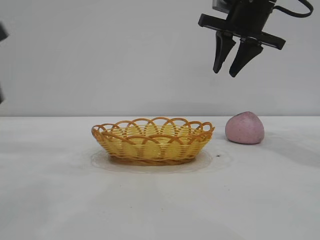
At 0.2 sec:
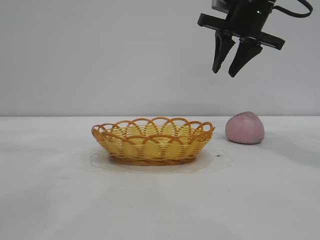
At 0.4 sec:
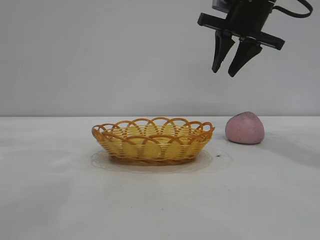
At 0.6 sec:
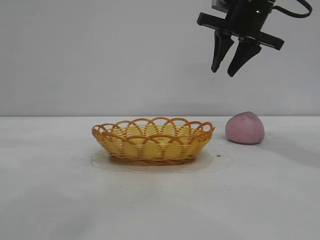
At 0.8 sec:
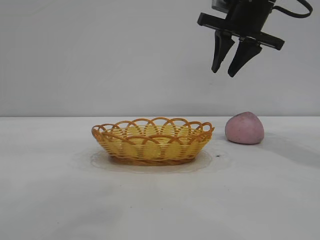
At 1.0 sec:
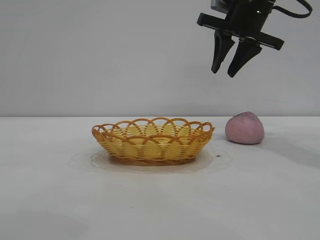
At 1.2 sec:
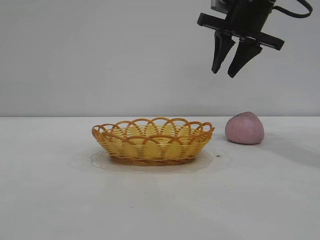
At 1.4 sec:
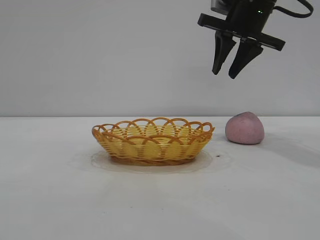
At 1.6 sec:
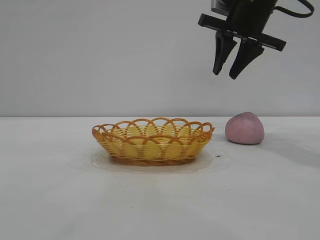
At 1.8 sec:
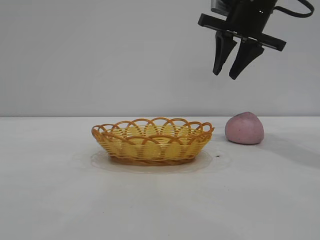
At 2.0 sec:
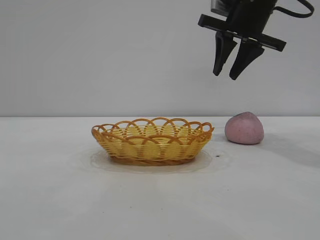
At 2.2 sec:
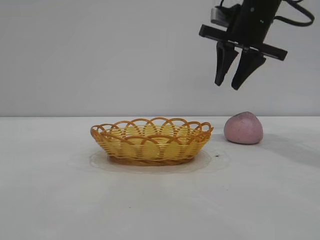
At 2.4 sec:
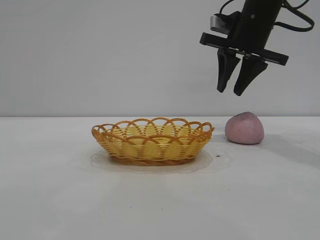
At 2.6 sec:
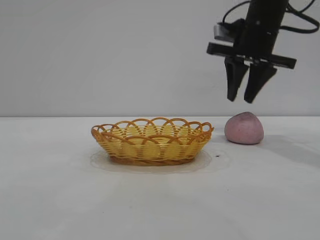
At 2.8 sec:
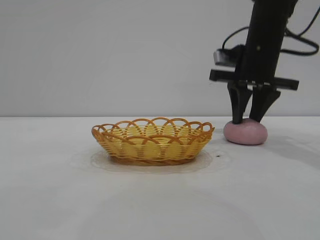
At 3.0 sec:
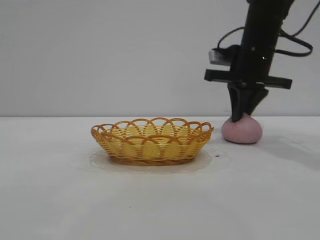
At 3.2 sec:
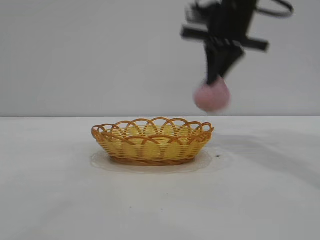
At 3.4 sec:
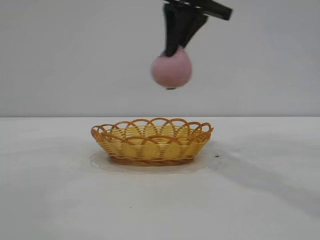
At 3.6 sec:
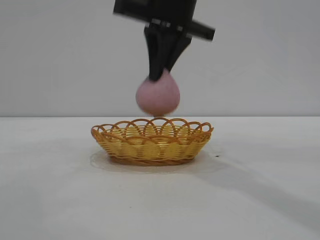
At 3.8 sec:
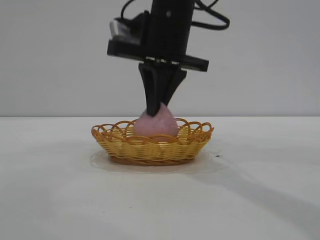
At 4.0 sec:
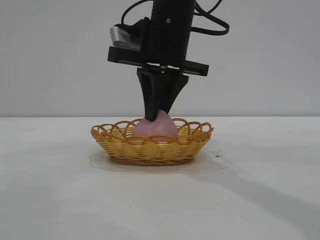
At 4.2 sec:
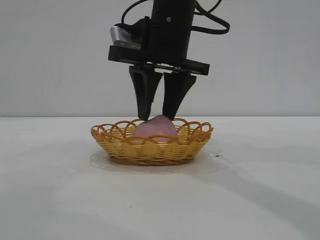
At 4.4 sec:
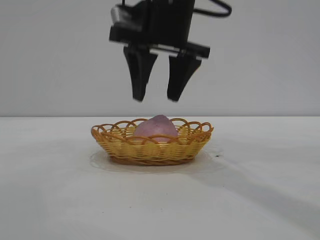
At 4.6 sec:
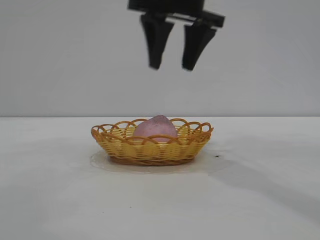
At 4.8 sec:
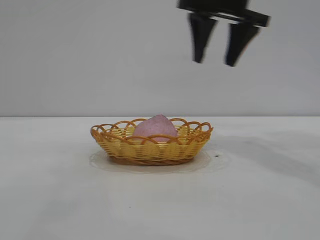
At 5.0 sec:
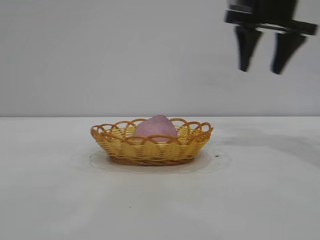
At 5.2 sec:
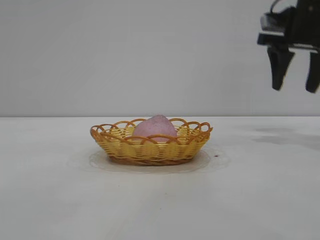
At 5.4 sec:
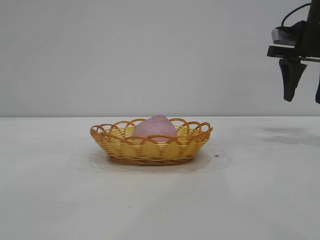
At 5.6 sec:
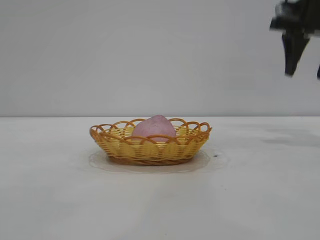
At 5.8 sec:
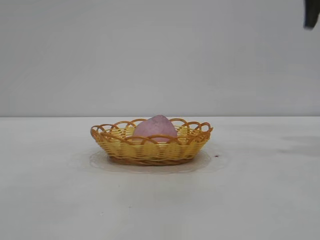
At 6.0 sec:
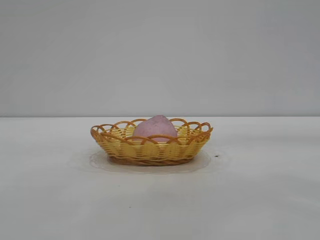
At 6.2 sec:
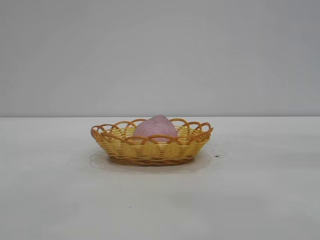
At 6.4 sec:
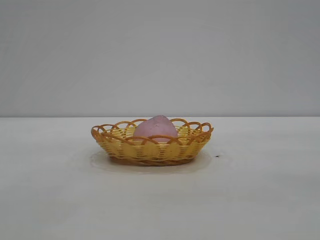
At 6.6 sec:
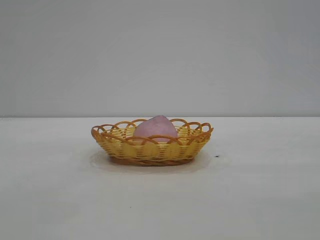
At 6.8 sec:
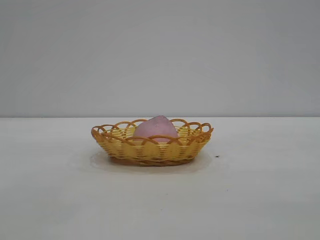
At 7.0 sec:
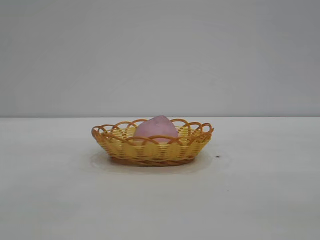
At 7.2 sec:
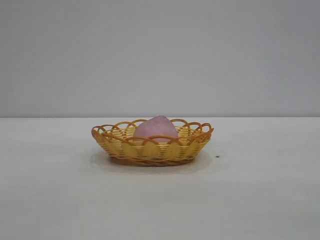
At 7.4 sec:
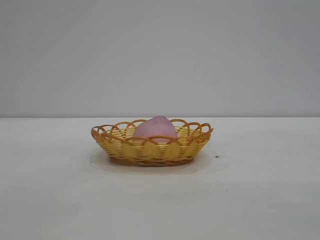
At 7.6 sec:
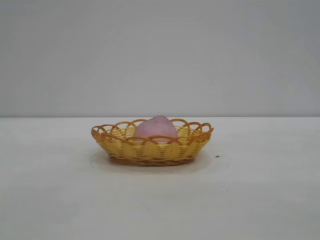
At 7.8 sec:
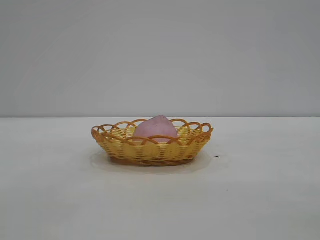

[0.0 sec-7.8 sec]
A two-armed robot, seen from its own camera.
Task of the whole recording: pick up the peach and put it into the basket.
Step, 0.0 sec to 3.0 sec: Pick up the peach.
Step, 3.2 sec to 4.4 sec: place the peach into the basket.
